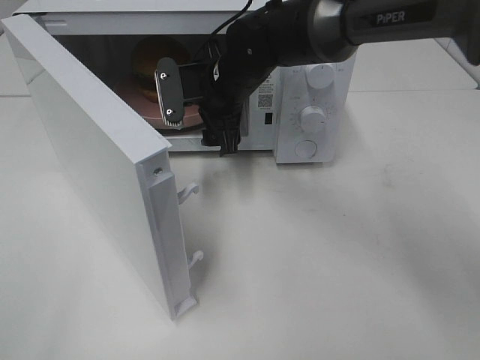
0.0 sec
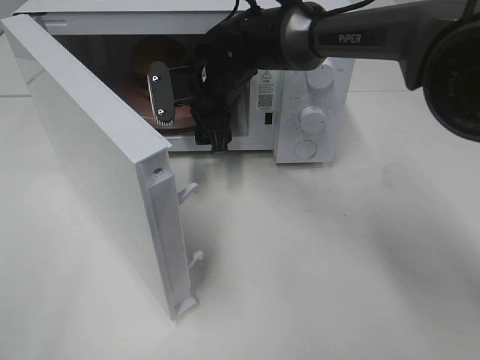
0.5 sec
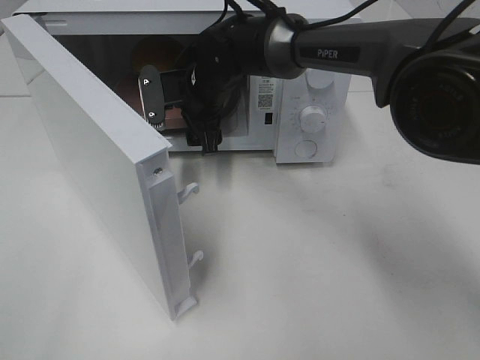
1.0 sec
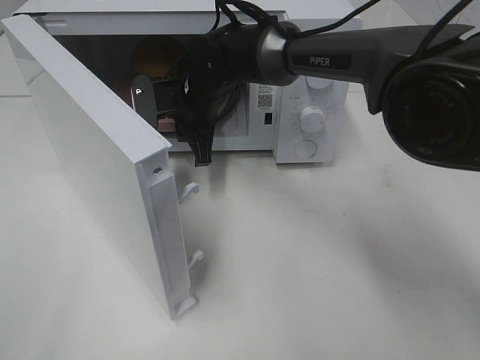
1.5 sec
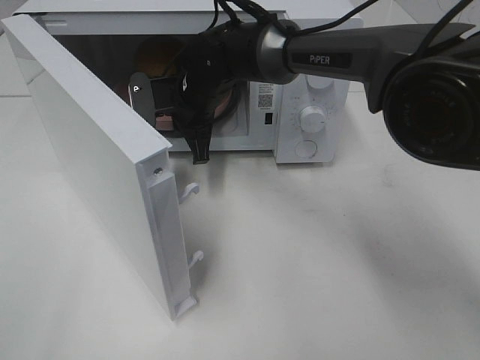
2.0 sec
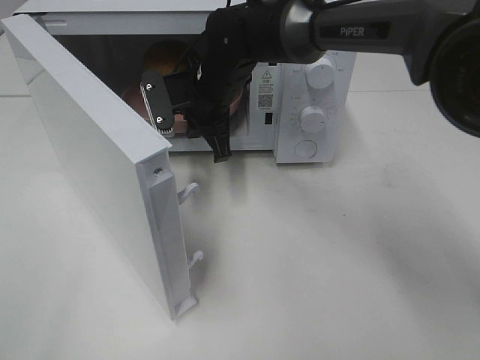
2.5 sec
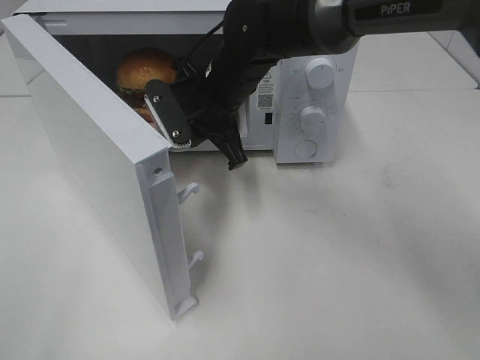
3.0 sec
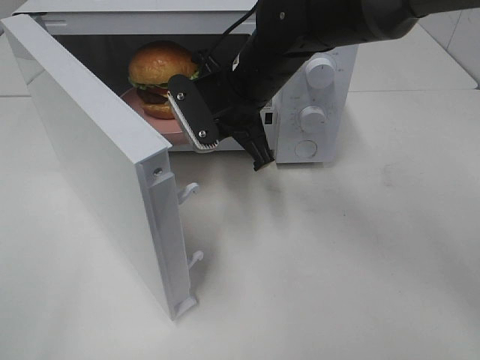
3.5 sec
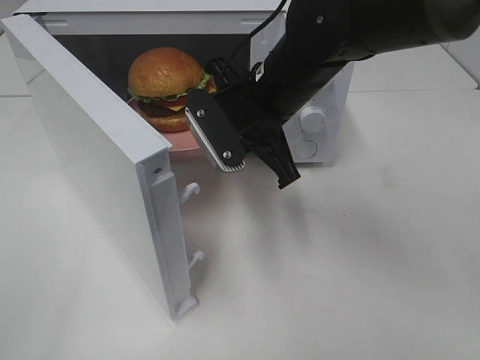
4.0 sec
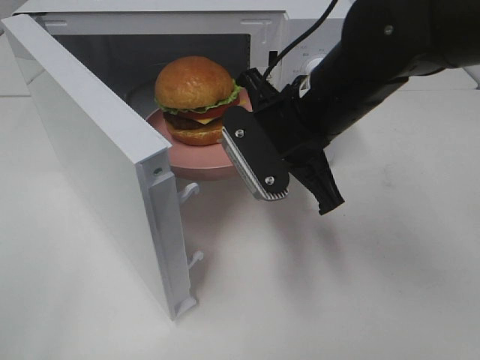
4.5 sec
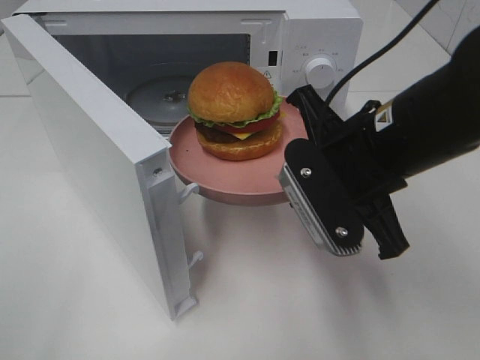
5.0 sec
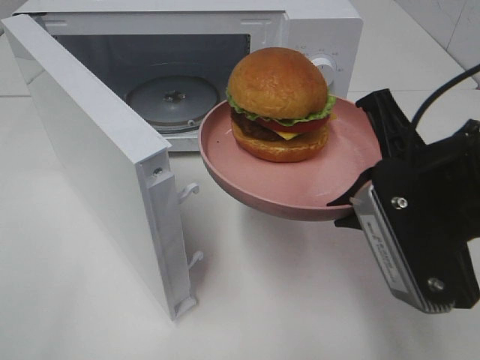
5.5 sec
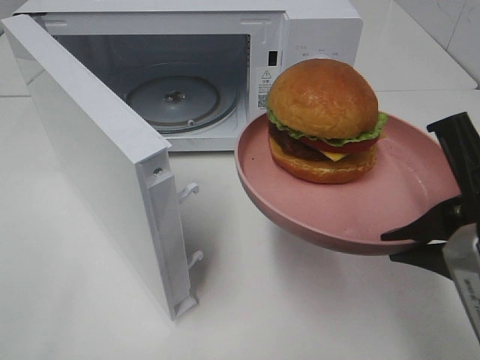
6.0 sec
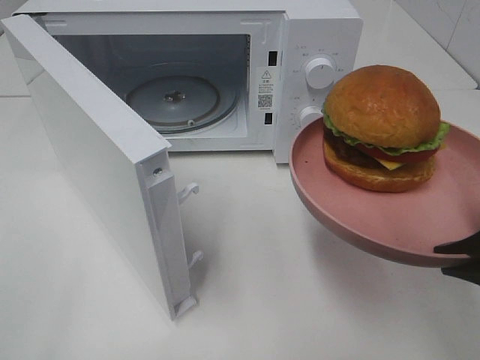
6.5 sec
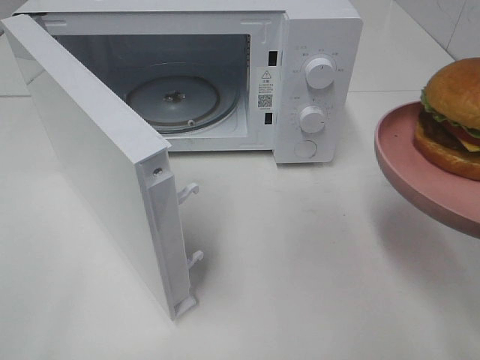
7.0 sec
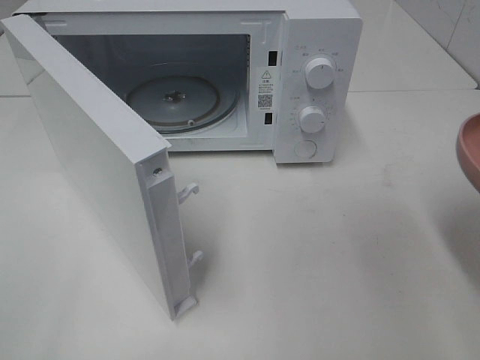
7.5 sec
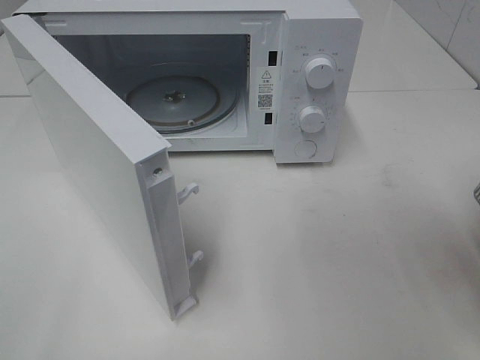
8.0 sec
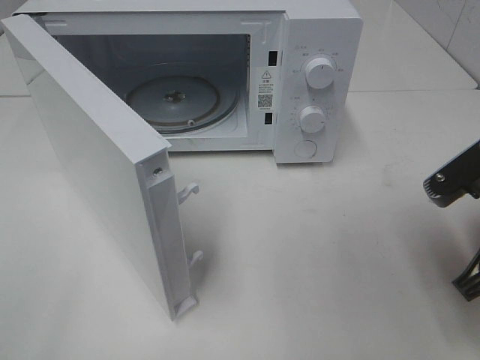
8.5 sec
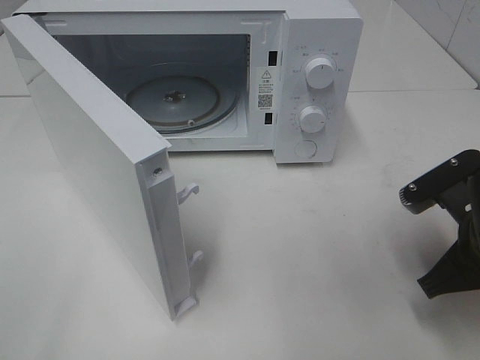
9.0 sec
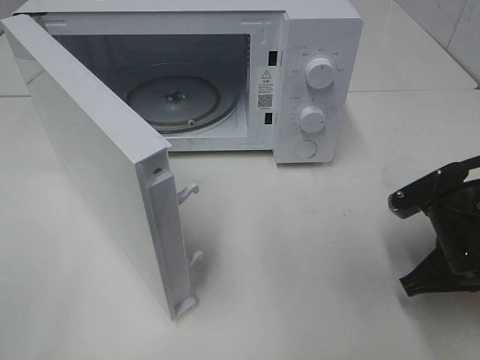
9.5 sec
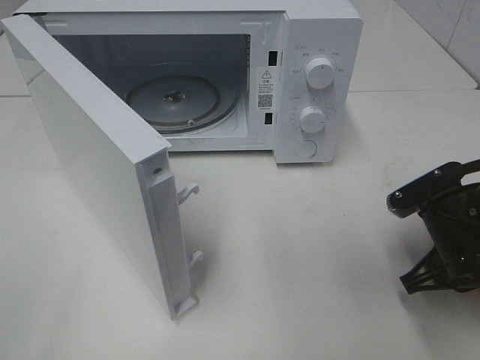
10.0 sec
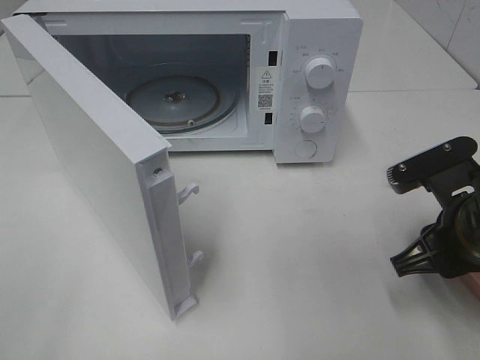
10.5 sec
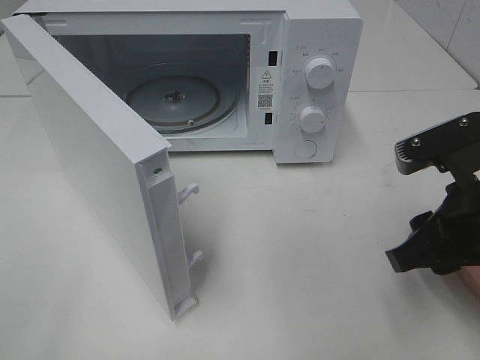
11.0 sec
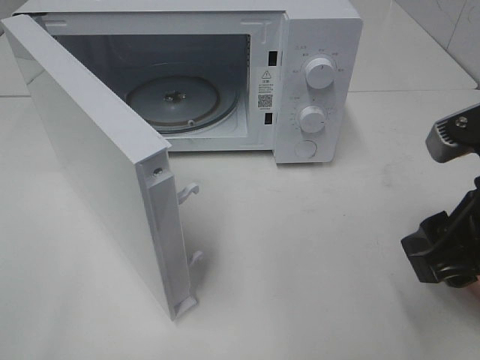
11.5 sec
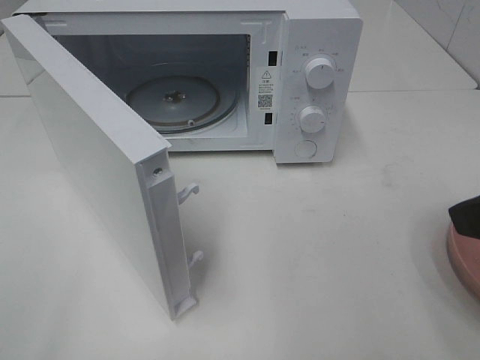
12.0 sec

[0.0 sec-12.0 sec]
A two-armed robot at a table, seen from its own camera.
Task of the whole recording: Heat the burger.
Step, 2.0 sec to 10.0 sec: Right hand: place the plate on the table.
0.0 sec to 2.0 sec: The right gripper moves some 5 cm, and closes its fingers.
2.0 sec to 4.0 sec: The right gripper travels backward, to the right and upward by roughly 15 cm.
4.0 sec to 6.0 sec: The right gripper goes roughly 25 cm backward and to the right.
6.0 sec to 8.0 sec: The right gripper goes some 5 cm to the right.
8.0 sec to 10.0 sec: The right gripper shifts some 15 cm downward and forward.
10.0 sec to 12.0 sec: The right gripper moves upward and backward, approximately 20 cm, and opens its fingers.

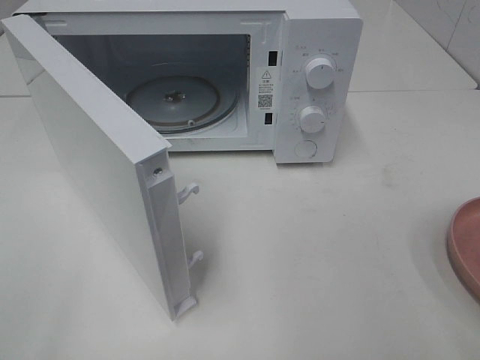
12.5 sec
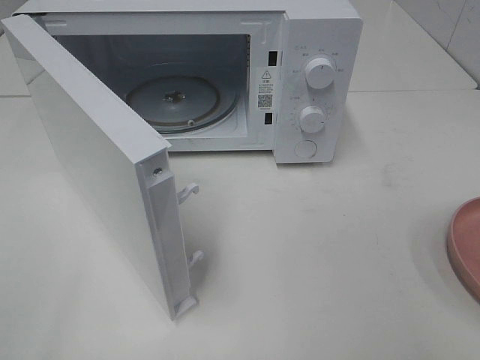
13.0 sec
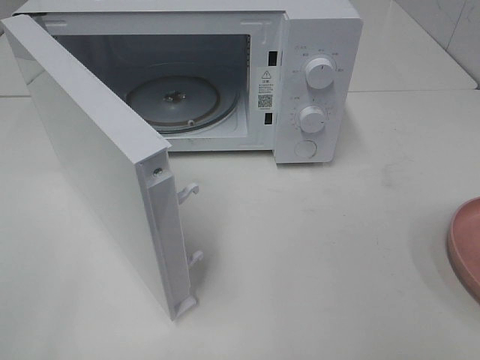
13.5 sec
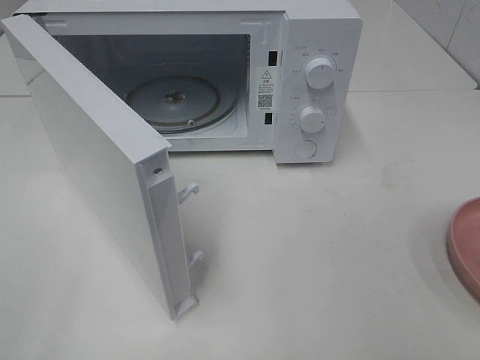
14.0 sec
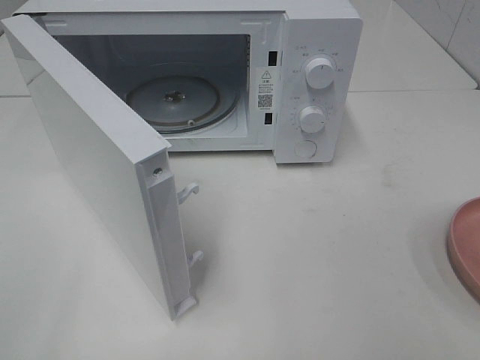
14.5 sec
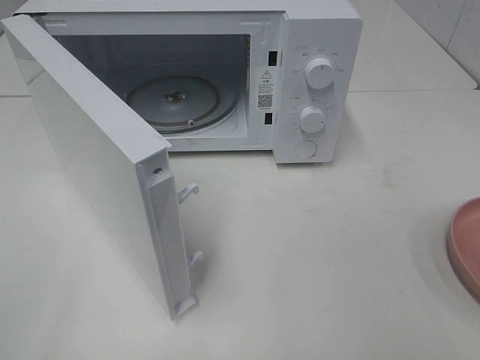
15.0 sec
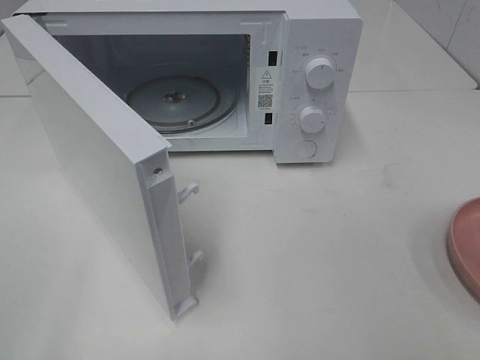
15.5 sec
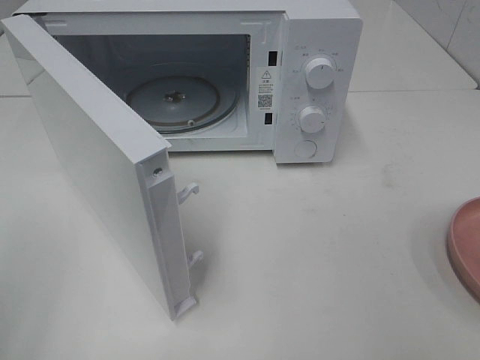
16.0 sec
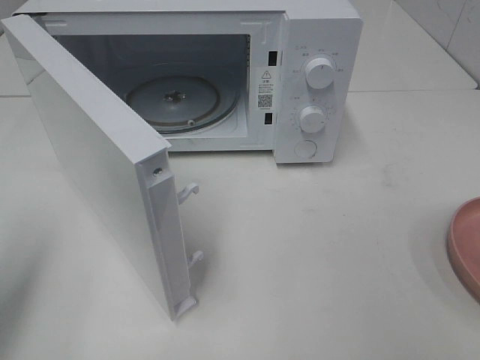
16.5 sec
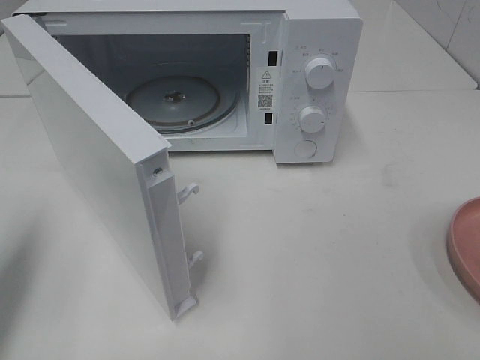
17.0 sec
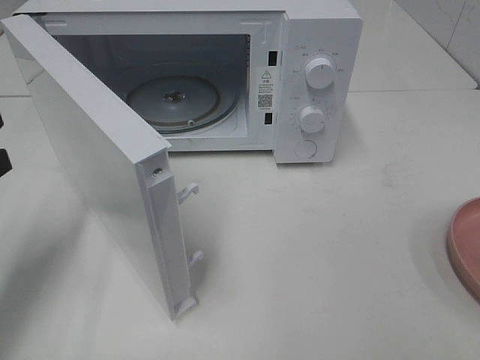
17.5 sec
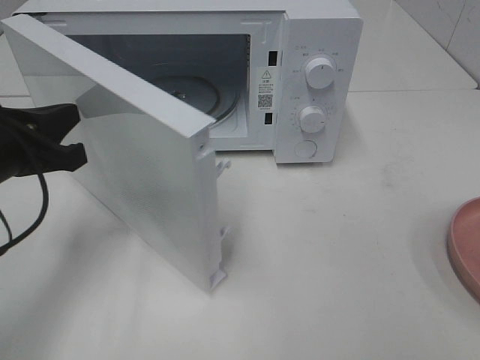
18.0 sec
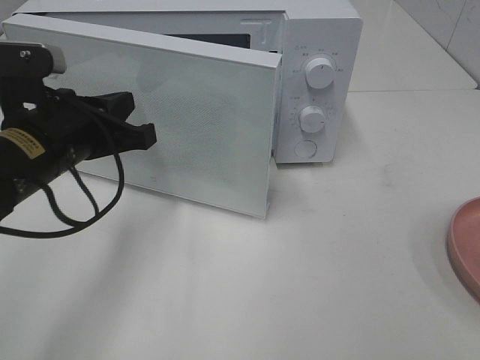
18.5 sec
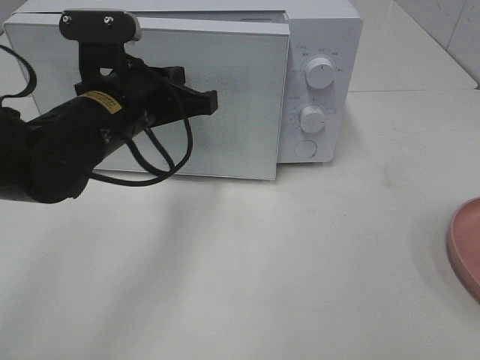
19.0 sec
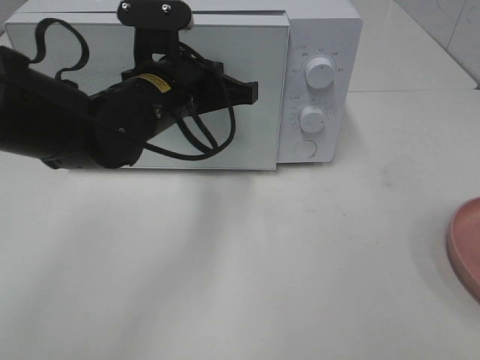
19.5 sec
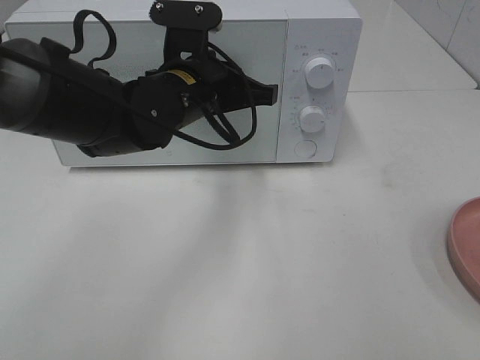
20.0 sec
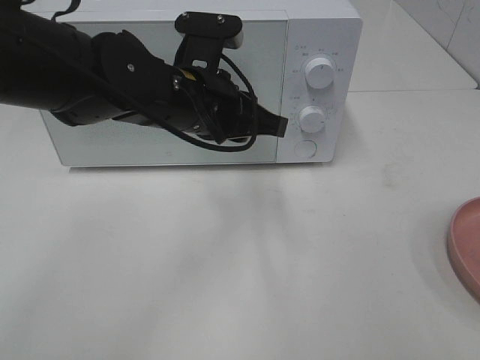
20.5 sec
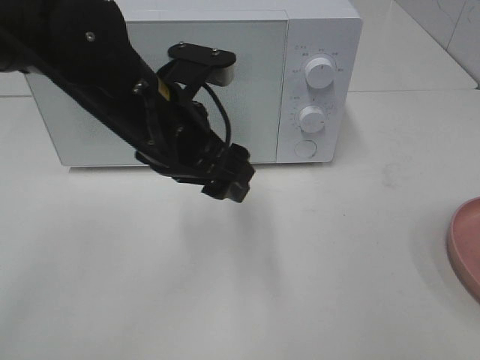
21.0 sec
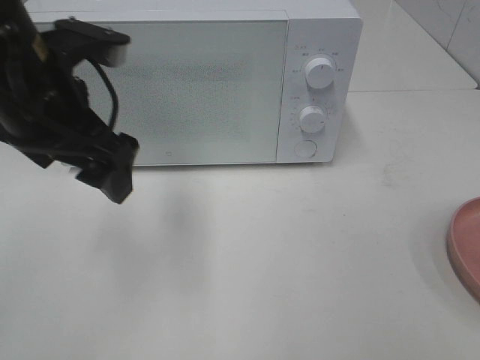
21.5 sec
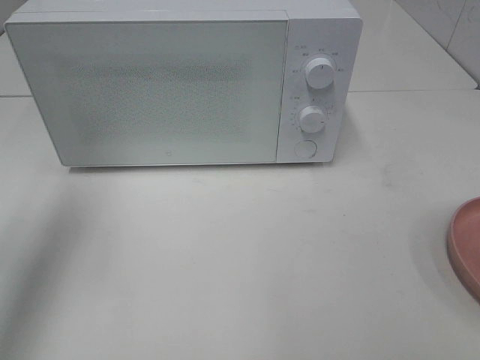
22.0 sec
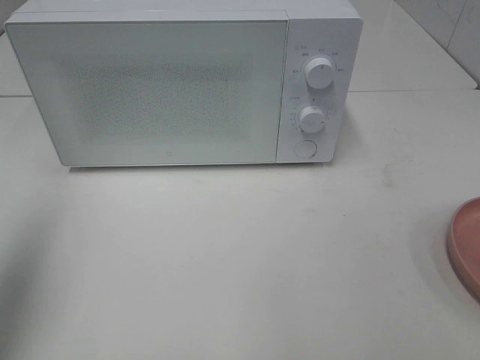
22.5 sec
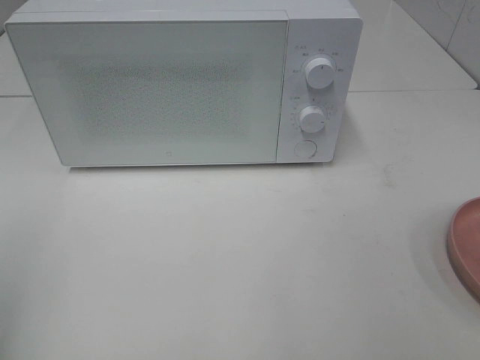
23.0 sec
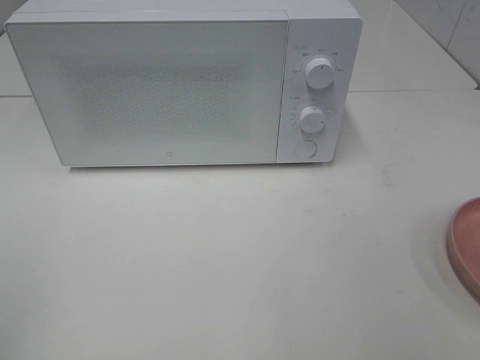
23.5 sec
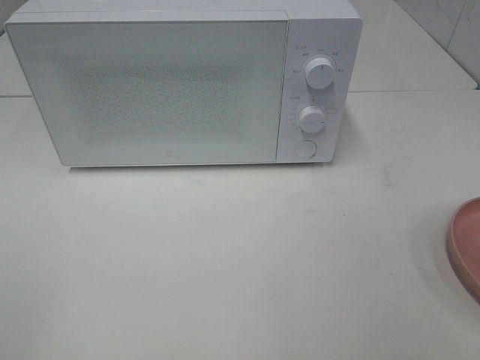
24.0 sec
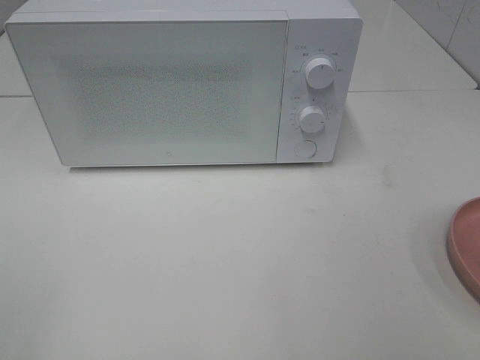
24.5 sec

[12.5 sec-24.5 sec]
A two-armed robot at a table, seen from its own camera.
Task of the whole recording: Heat the burger.
Step, 12.5 sec to 20.0 sec: Left hand: close the microwave door.
14.5 sec to 16.5 sec: The left gripper moves forward, about 15 cm, and closes.
16.5 sec to 18.5 sec: The left gripper is displaced to the right, forward and downward by approximately 20 cm.
18.5 sec to 20.5 sec: The left gripper is displaced to the right by some 15 cm.
20.5 sec to 22.5 sec: The left gripper shifts roughly 35 cm to the left, upward and backward, and opens its fingers.
22.5 sec to 24.5 sec: The left gripper goes about 20 cm backward.

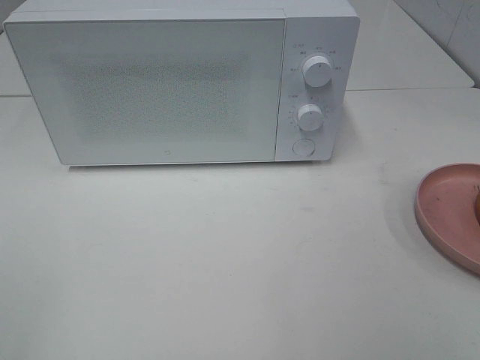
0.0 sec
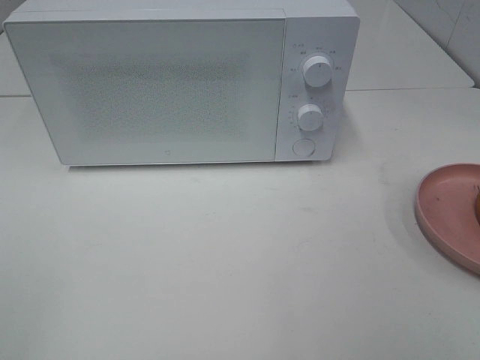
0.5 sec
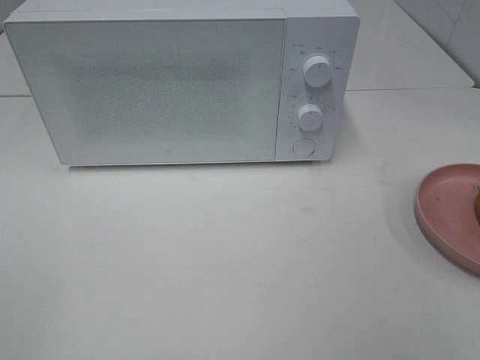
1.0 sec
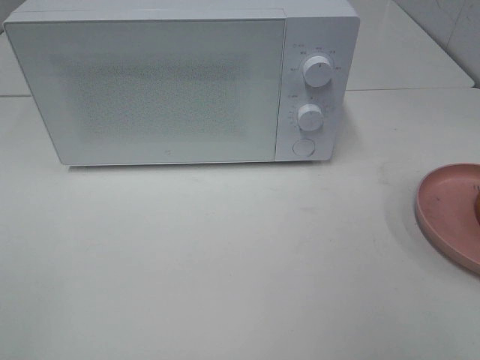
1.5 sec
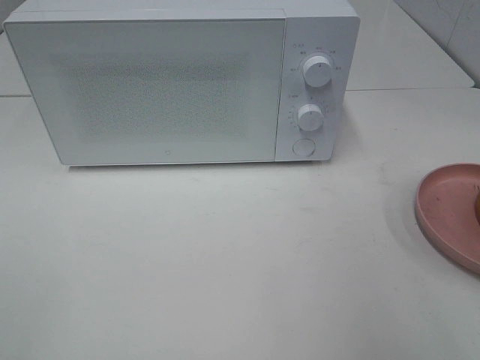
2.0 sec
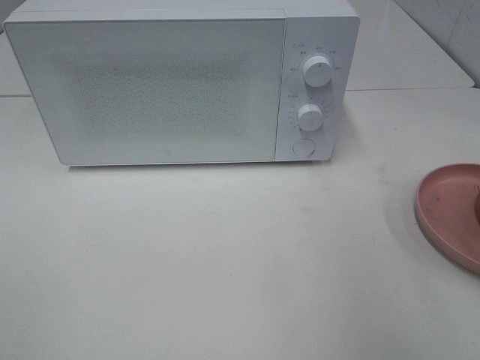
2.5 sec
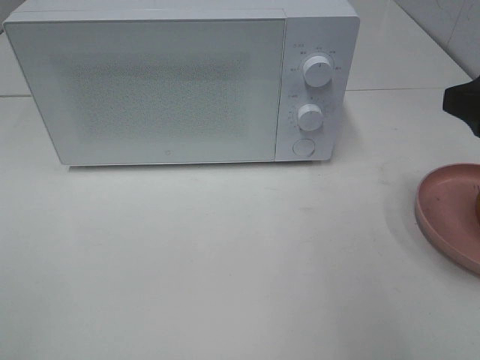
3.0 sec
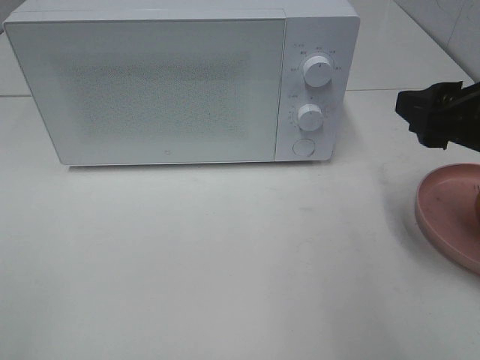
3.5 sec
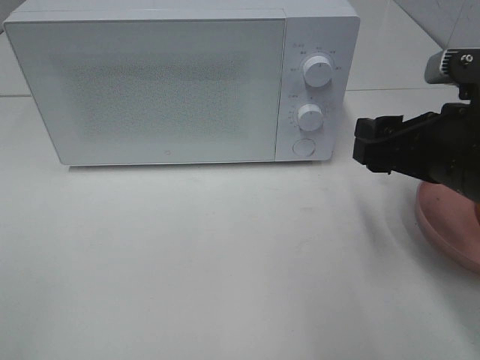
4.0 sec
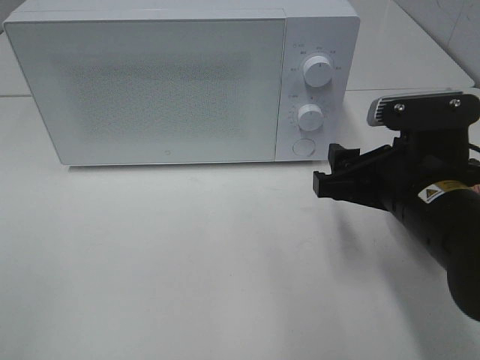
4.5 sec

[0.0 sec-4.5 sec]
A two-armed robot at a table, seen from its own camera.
Task of the whole recording: Heat the burger.
2.0 sec to 4.5 sec: The right gripper moves downward, to the left and forward, some 20 cm.
